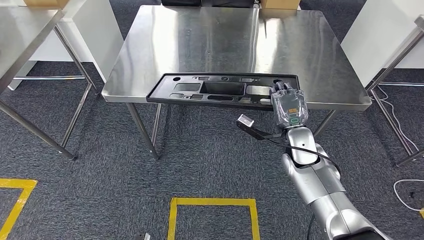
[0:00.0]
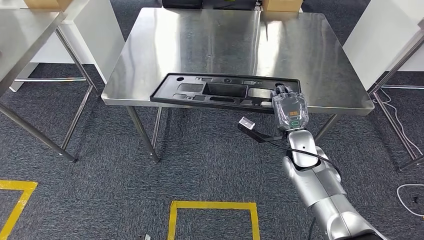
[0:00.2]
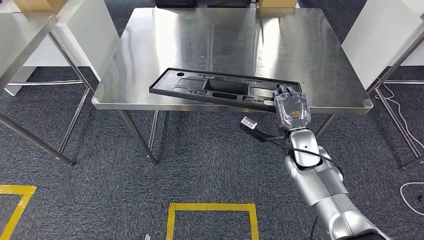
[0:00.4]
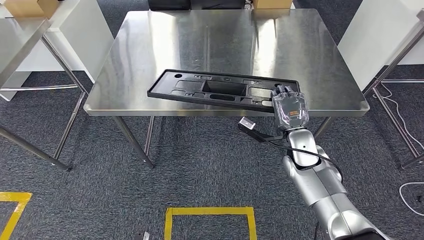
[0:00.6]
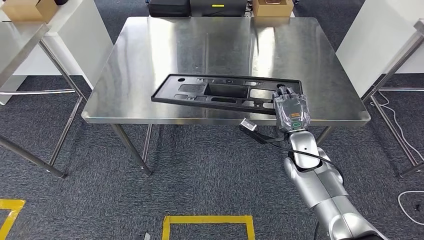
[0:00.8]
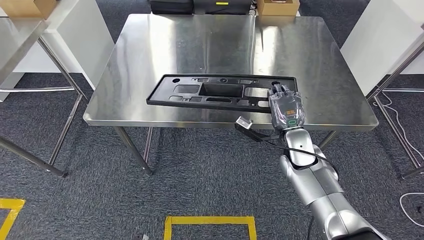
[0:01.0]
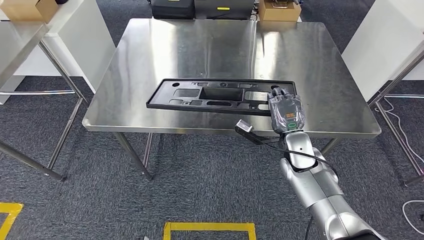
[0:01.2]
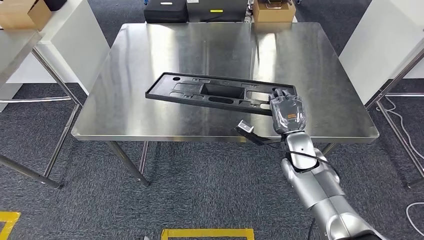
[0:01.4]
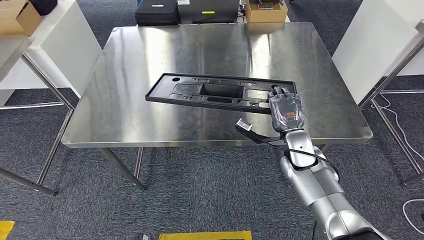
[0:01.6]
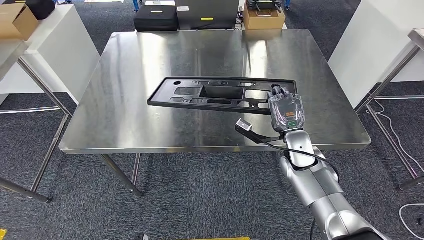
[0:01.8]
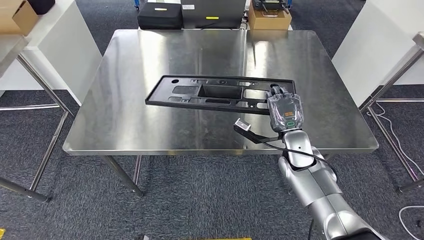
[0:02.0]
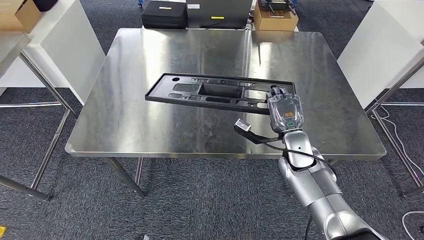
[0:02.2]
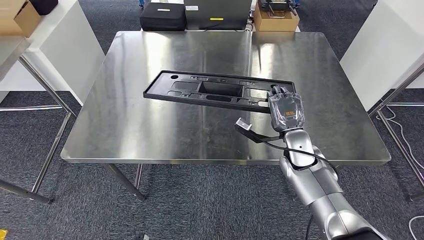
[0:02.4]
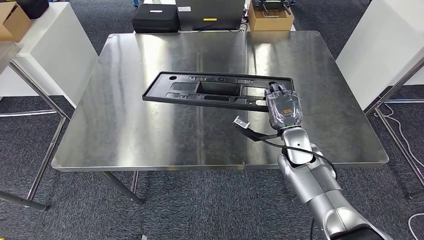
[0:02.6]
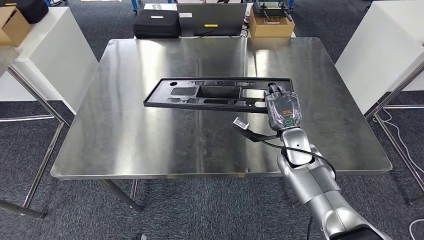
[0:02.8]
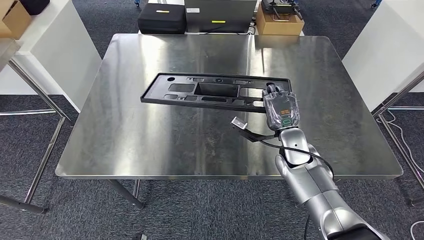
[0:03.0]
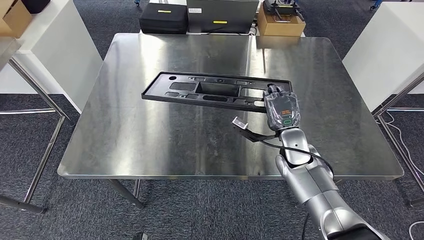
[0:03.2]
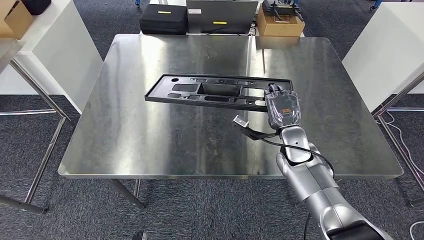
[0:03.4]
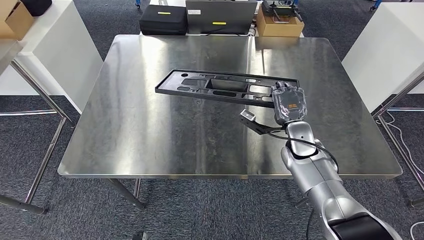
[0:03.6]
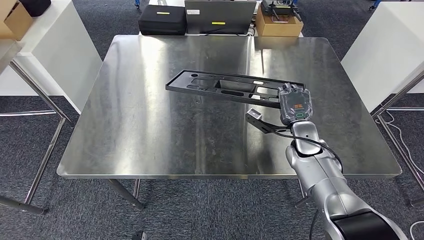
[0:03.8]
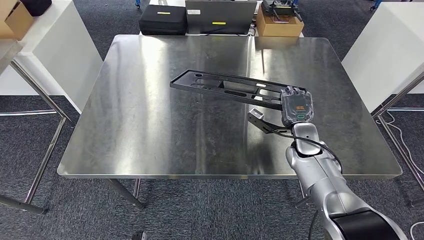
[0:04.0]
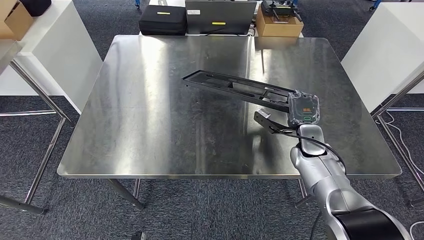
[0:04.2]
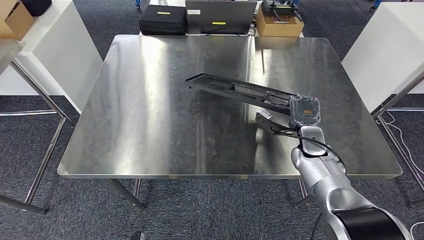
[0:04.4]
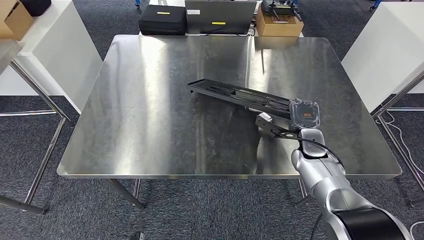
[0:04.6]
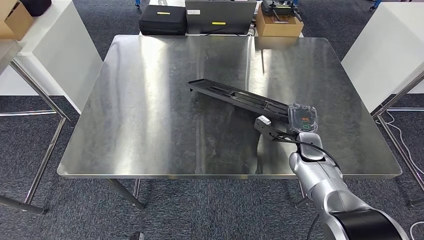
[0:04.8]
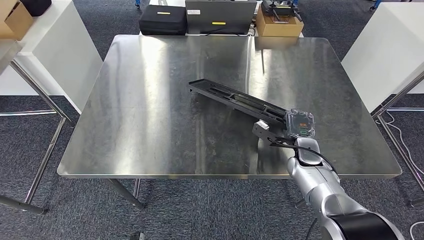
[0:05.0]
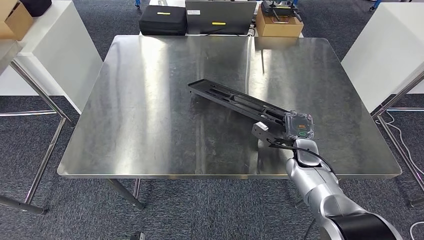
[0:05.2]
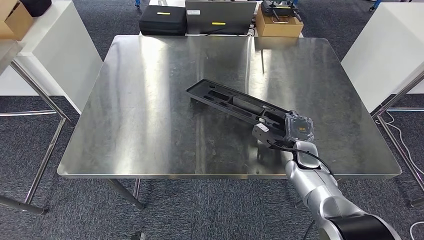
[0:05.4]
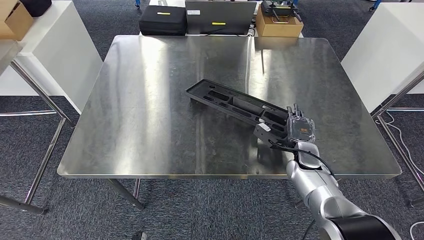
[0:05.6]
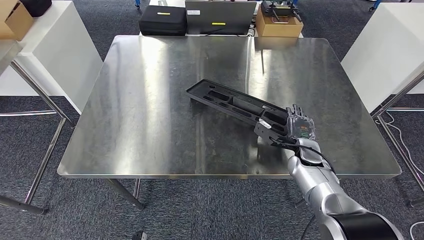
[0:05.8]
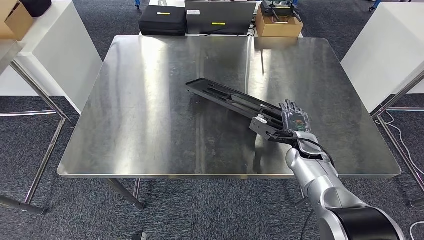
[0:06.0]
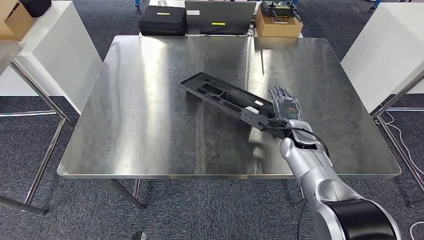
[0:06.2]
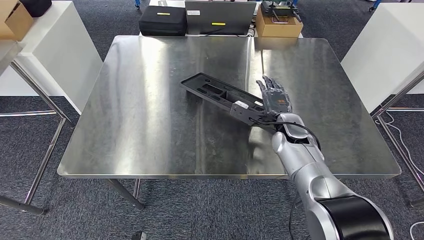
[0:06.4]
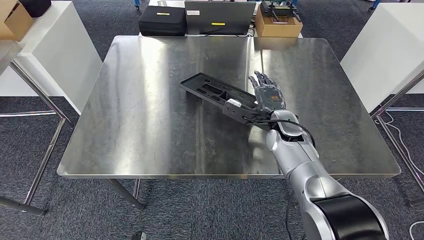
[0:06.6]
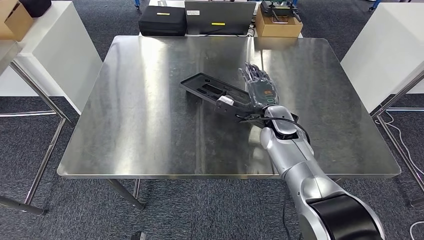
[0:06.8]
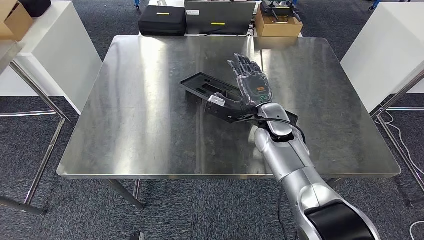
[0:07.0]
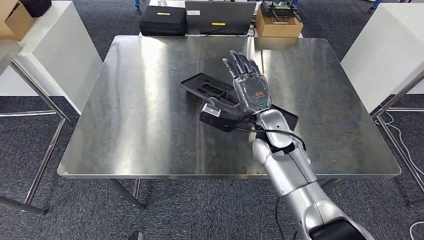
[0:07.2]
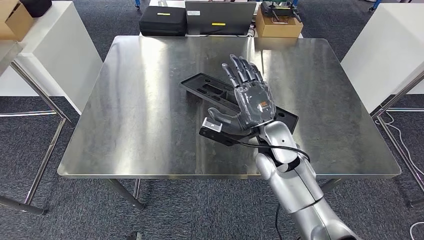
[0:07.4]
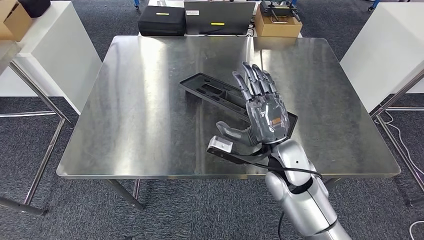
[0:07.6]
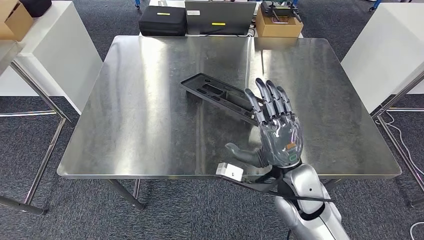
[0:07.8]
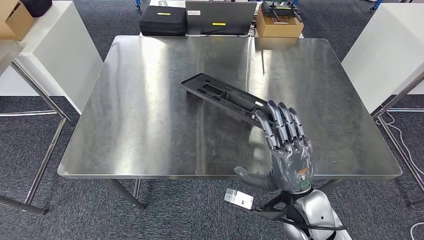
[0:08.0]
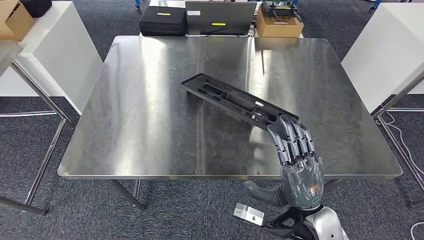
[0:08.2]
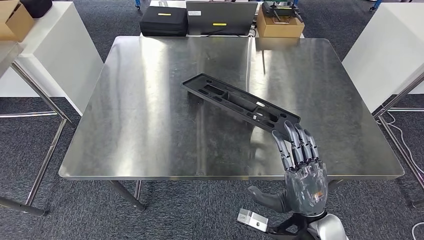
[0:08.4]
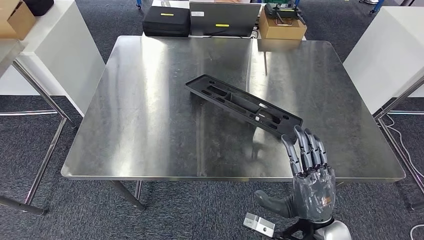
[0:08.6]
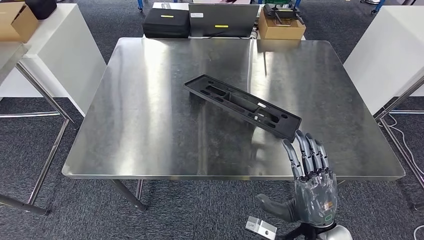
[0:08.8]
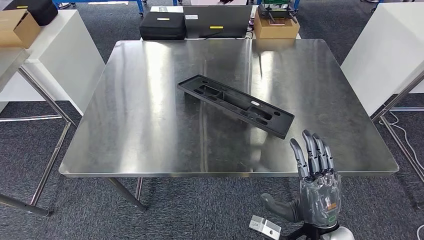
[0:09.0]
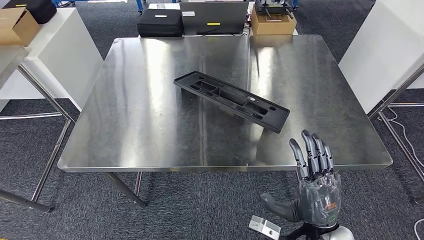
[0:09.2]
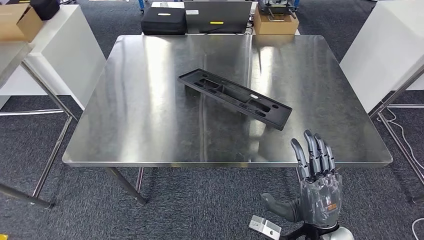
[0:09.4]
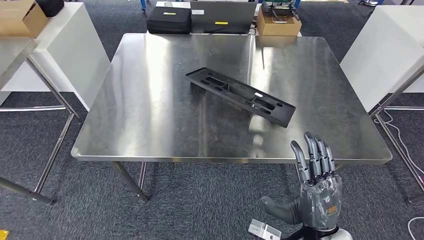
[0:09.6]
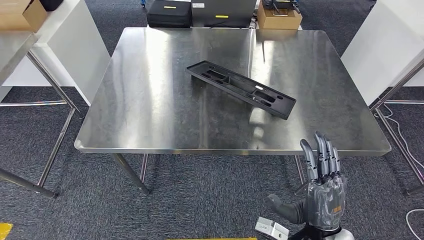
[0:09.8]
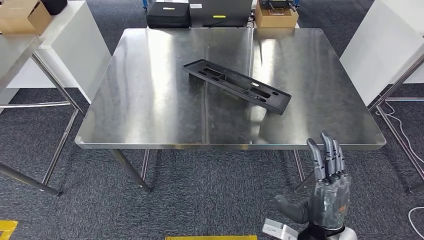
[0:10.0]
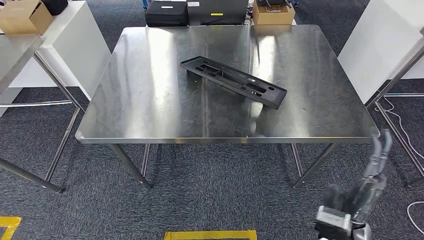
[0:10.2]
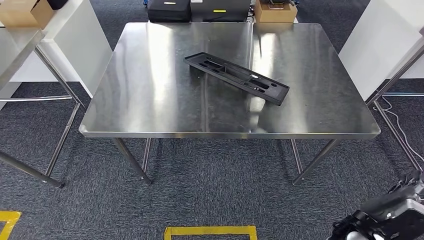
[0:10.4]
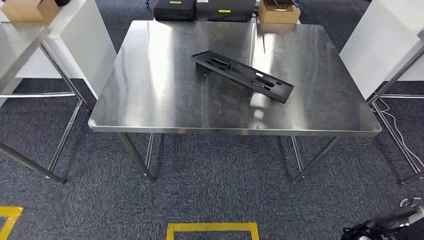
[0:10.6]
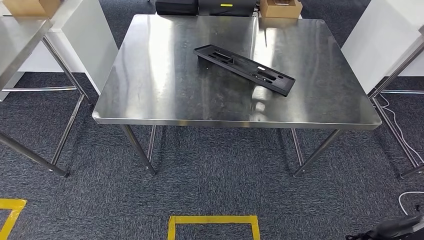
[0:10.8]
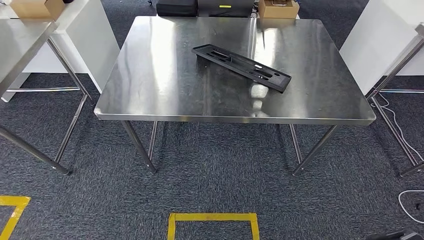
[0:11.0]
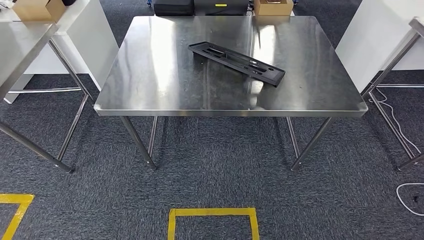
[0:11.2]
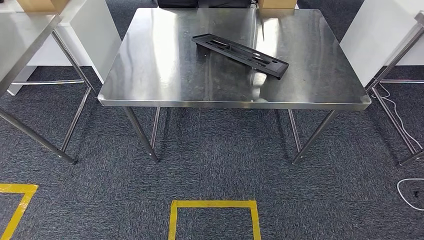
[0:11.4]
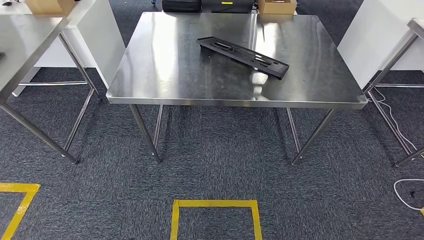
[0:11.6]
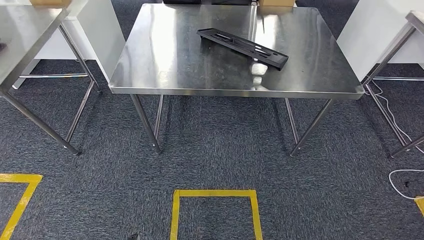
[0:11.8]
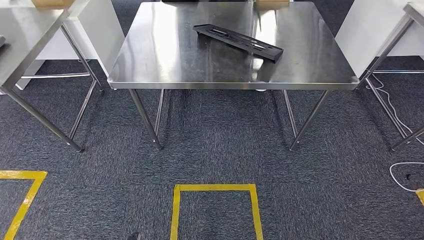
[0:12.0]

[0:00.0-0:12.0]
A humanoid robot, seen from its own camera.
Step, 0:00.2 to 0:11.6: Insert the large material into the corresponding slot on the workbench.
0:03.0 to 0:04.4: The right hand shifts approximately 5 cm to the right.
0:06.0 to 0:07.6: The right hand travels to the left, upward and backward by roughly 20 cm.

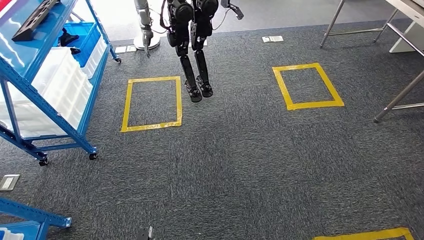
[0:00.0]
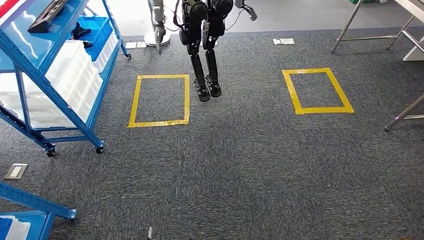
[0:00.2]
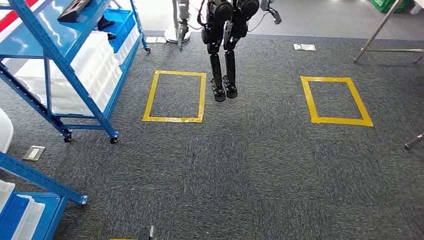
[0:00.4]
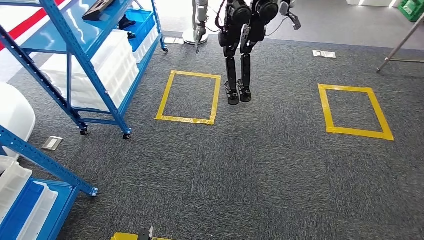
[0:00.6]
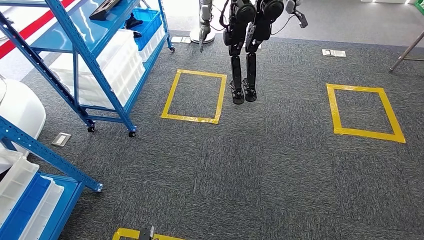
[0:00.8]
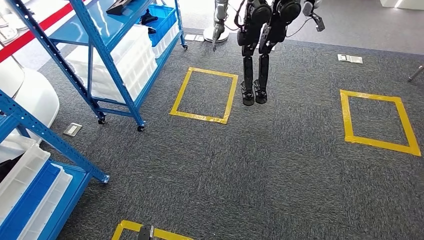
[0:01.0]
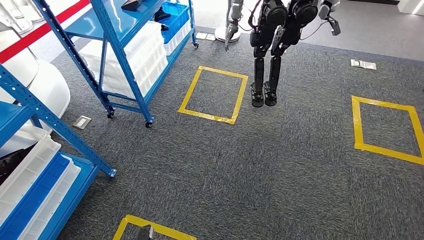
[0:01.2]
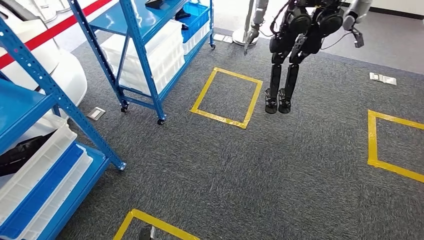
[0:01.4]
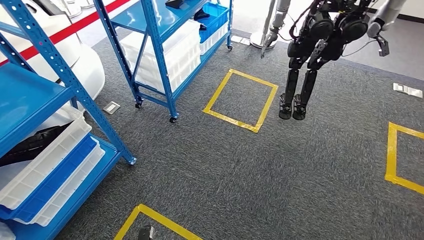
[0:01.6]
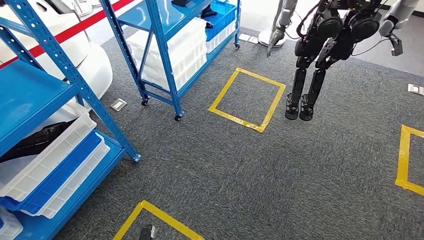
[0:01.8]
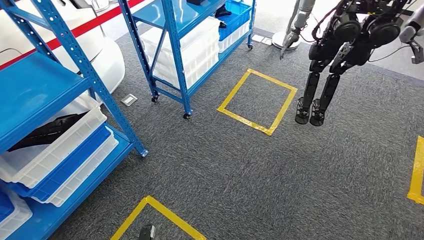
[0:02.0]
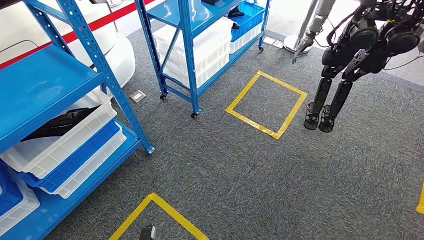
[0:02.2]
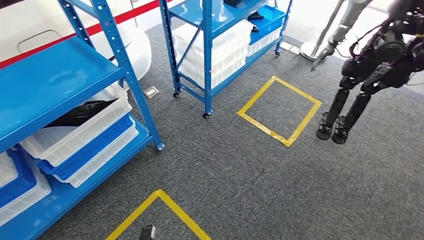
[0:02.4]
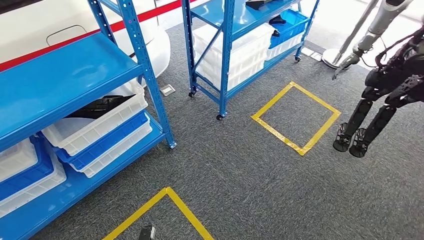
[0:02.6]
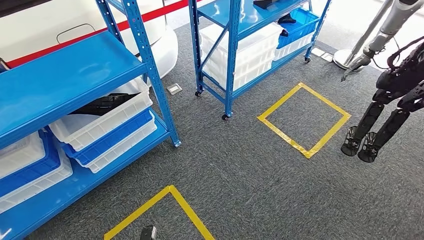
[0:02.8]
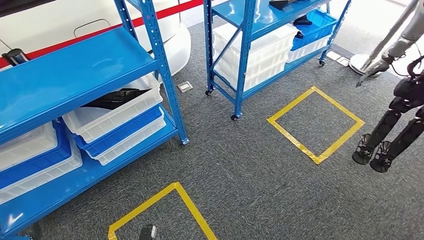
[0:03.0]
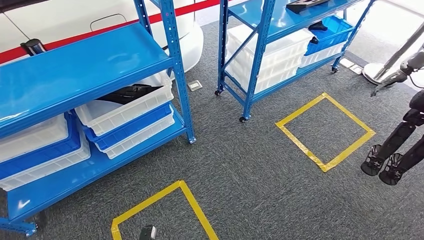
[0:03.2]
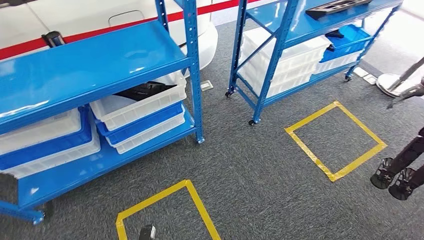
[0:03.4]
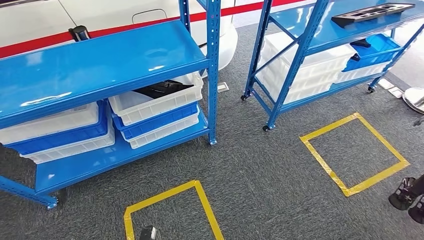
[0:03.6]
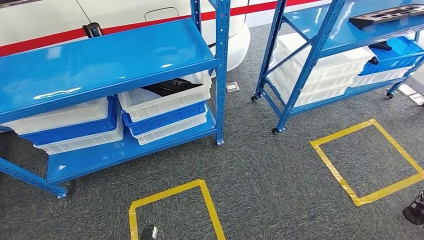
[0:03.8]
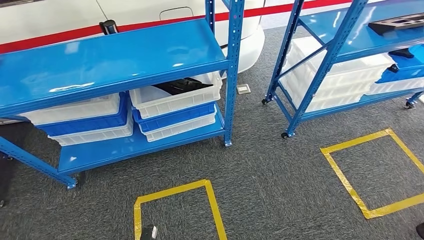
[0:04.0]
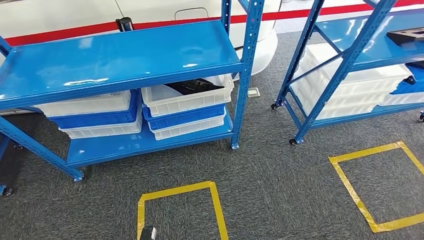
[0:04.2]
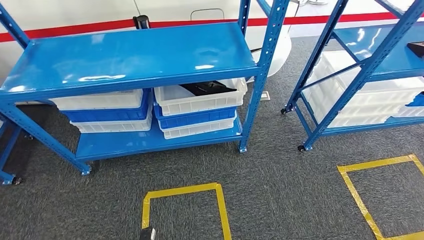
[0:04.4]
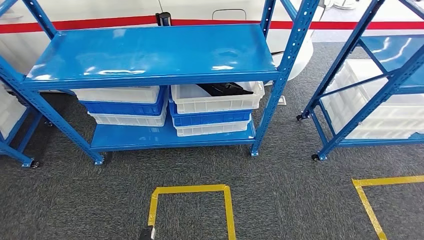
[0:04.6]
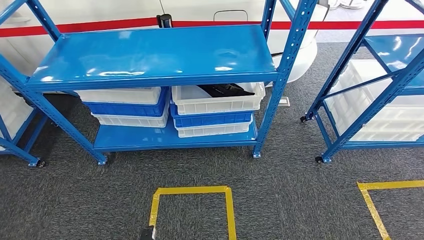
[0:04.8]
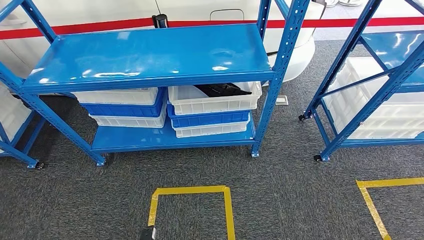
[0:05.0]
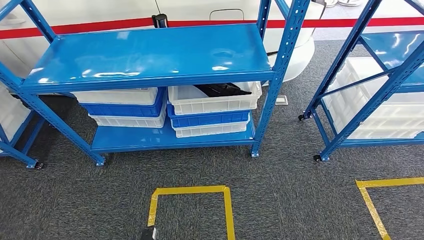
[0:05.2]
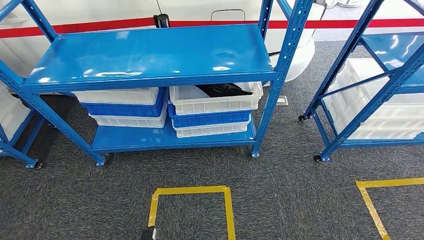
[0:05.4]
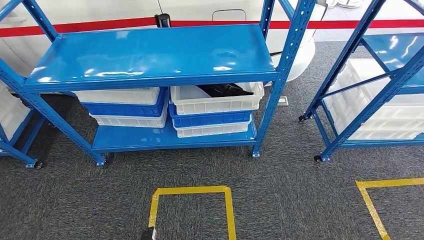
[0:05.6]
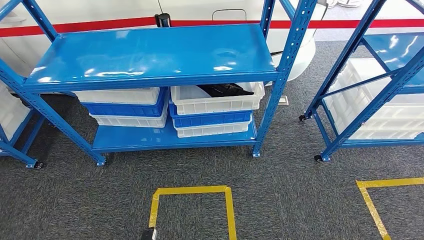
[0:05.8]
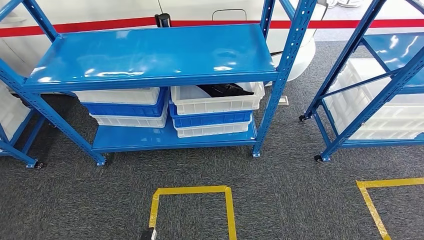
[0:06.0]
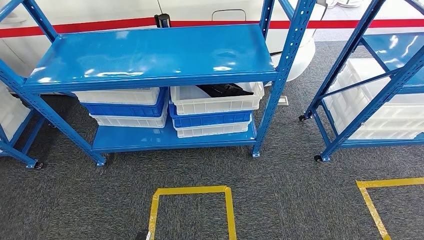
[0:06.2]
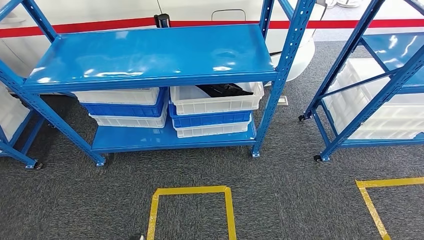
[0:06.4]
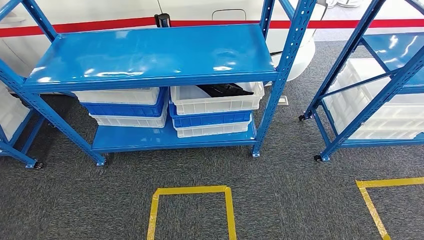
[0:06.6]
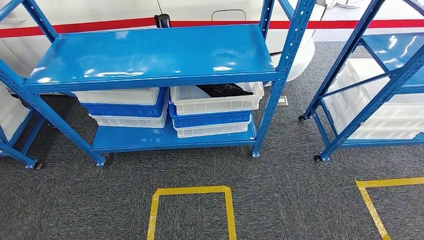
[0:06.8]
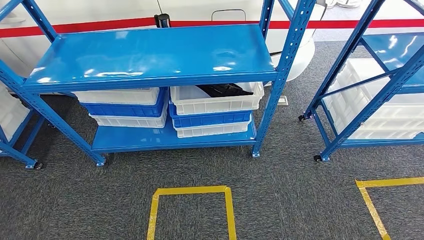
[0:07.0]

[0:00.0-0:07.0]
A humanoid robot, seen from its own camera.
Step, 0:00.0 to 0:07.0: Move to the initial position of the shelf.
0:05.6 to 0:07.0: The right hand shifts by approximately 5 cm, while the left hand is displaced to the left and backward by approximately 15 cm.
